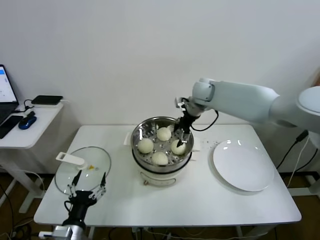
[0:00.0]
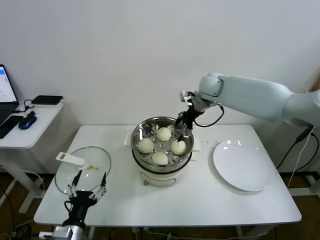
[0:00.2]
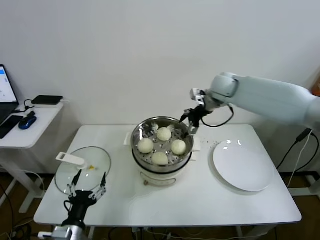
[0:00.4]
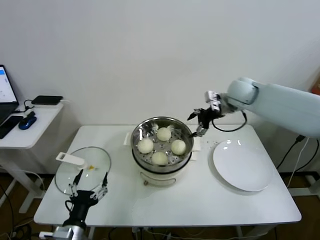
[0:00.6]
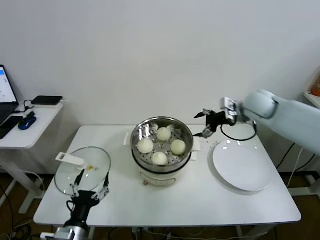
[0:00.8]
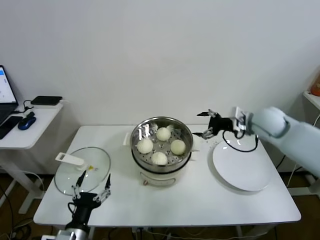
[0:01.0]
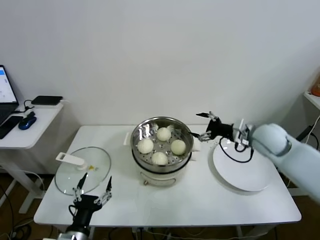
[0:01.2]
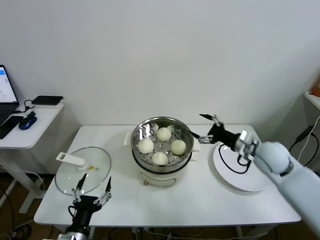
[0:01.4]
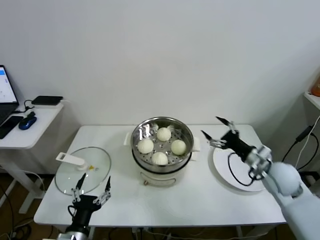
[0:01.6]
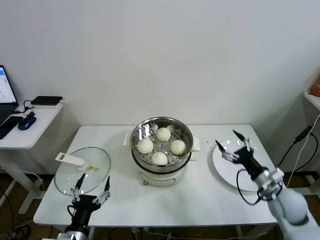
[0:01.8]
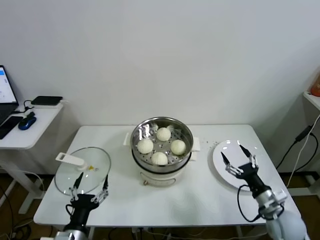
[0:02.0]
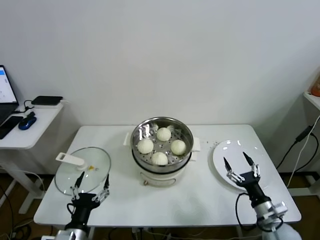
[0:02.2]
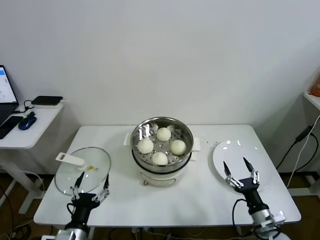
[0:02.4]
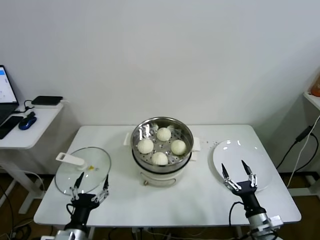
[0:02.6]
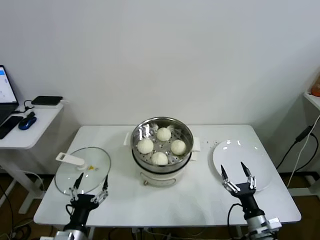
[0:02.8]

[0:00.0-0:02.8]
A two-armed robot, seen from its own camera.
Task of the whole recording: take steamed baozi put them in steamer.
0:00.0 to 0:01.4: The right gripper is displaced backward, to the right and downward by some 30 cm.
0:01.4 to 0:02.8: The right gripper is displaced backward and downward by approximately 30 cm.
